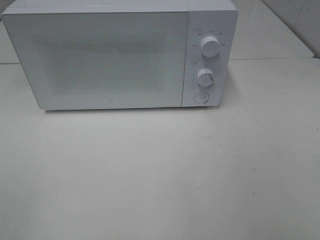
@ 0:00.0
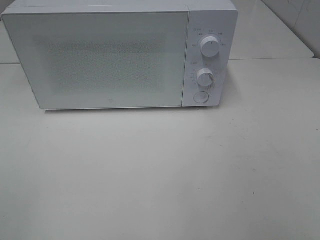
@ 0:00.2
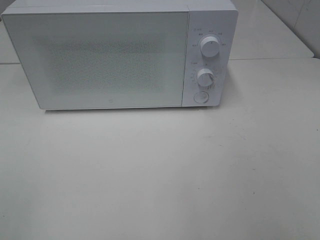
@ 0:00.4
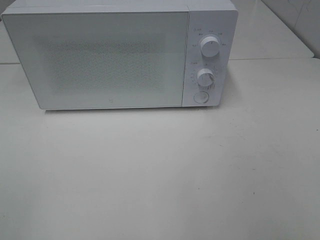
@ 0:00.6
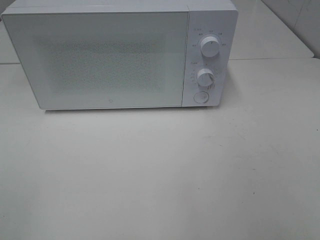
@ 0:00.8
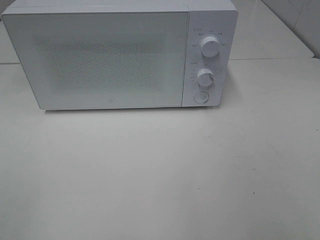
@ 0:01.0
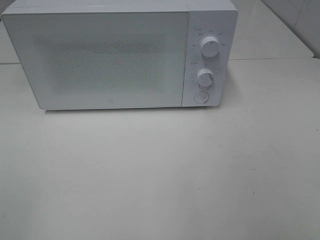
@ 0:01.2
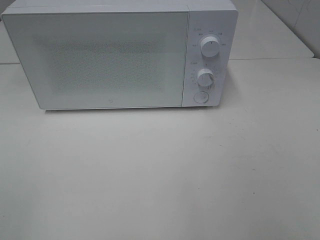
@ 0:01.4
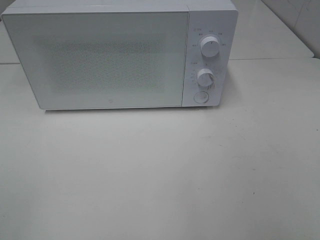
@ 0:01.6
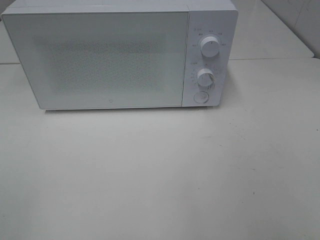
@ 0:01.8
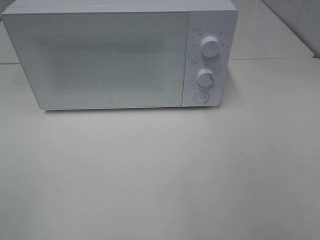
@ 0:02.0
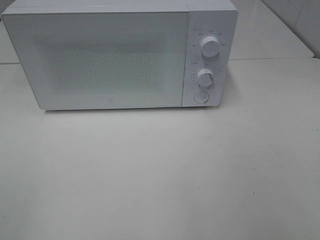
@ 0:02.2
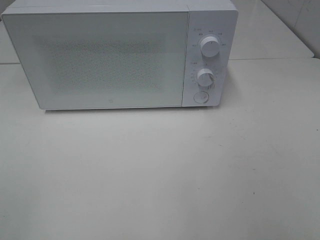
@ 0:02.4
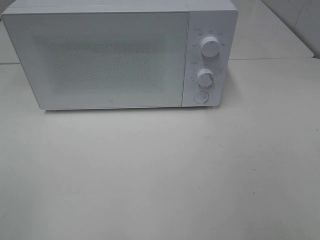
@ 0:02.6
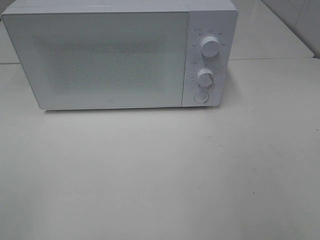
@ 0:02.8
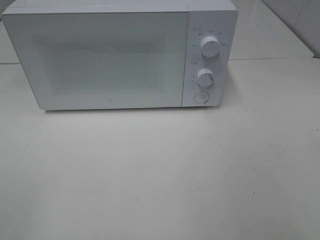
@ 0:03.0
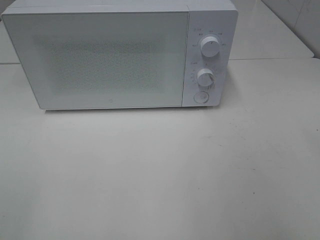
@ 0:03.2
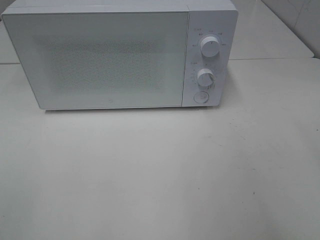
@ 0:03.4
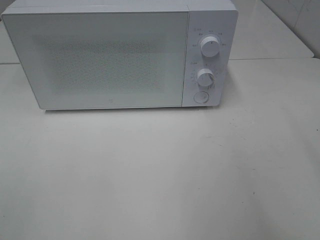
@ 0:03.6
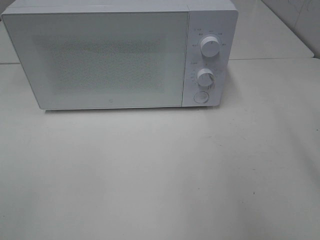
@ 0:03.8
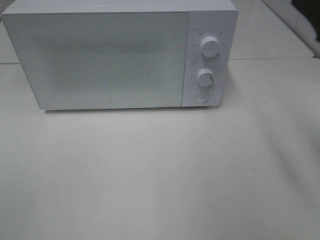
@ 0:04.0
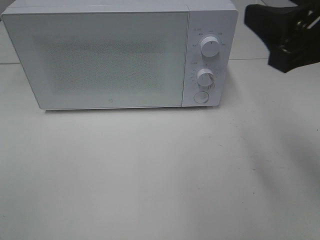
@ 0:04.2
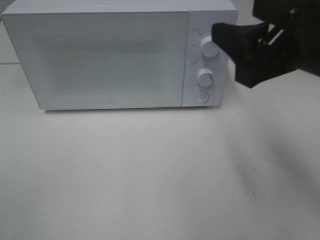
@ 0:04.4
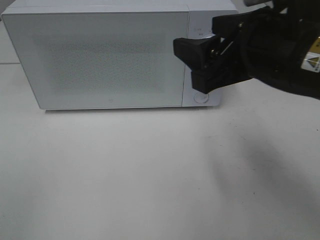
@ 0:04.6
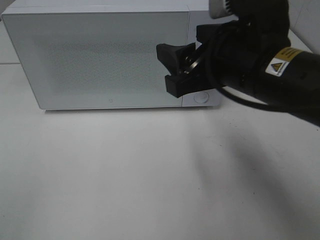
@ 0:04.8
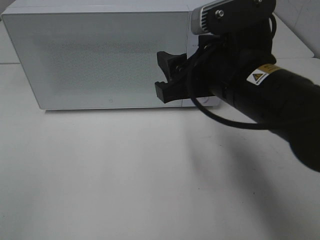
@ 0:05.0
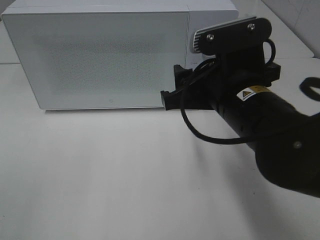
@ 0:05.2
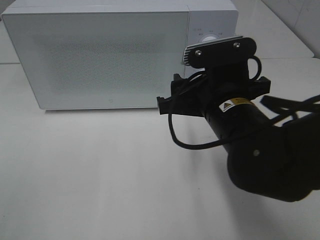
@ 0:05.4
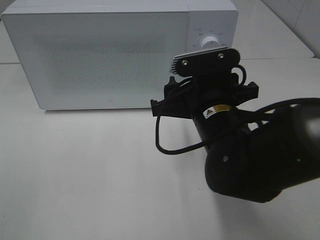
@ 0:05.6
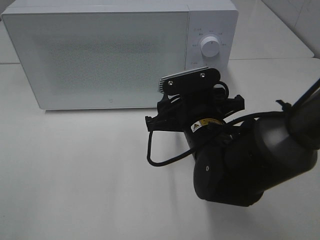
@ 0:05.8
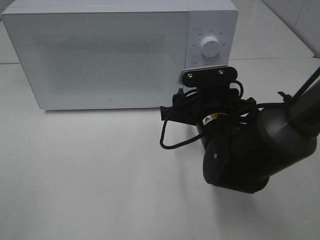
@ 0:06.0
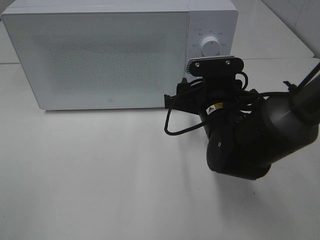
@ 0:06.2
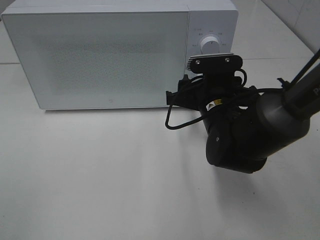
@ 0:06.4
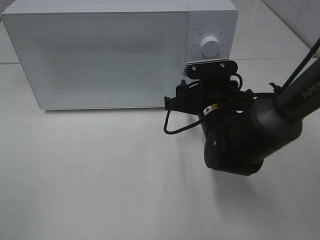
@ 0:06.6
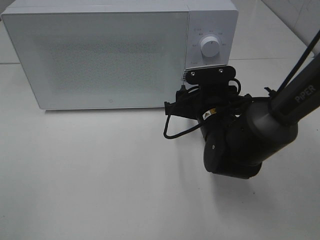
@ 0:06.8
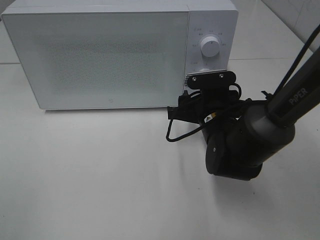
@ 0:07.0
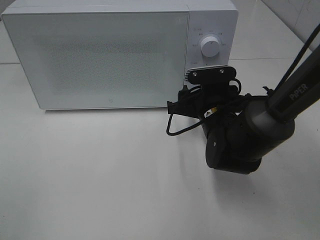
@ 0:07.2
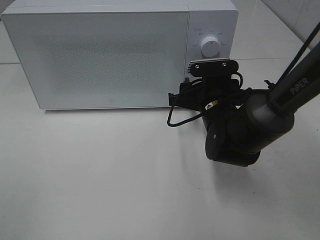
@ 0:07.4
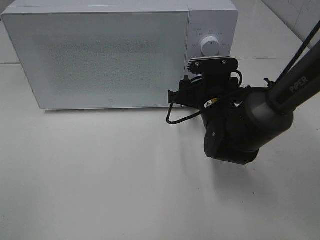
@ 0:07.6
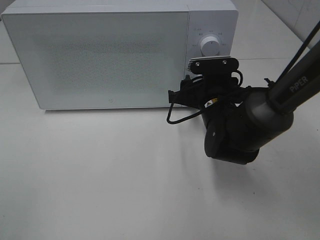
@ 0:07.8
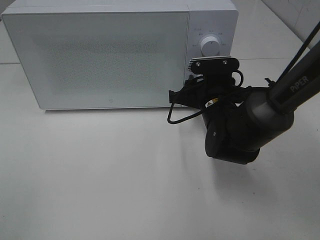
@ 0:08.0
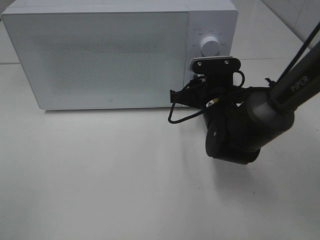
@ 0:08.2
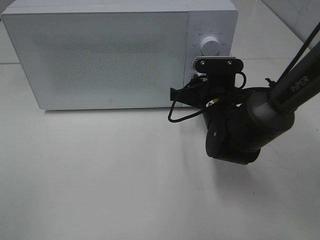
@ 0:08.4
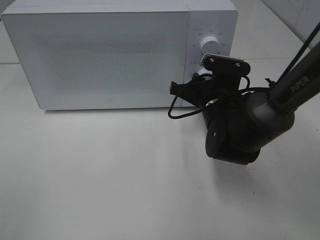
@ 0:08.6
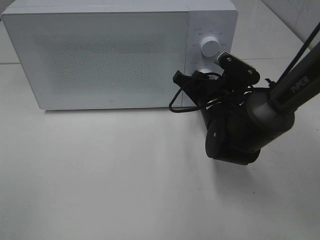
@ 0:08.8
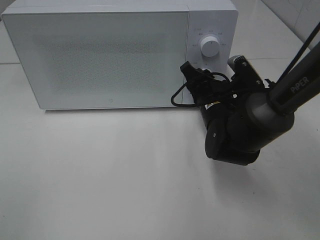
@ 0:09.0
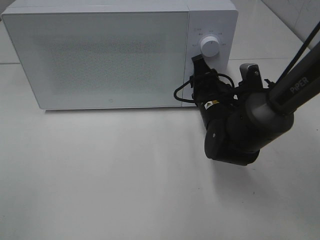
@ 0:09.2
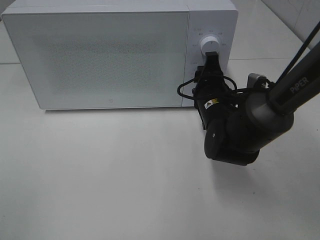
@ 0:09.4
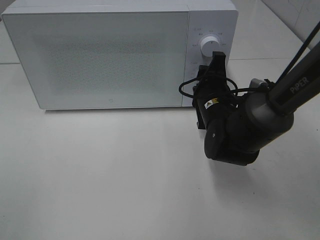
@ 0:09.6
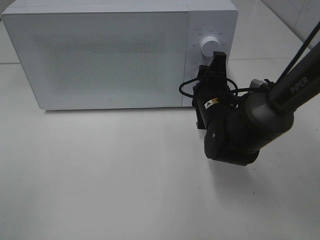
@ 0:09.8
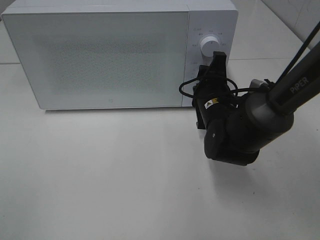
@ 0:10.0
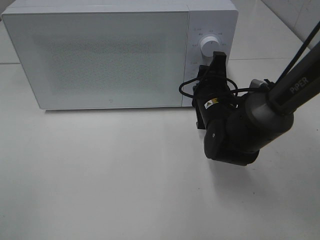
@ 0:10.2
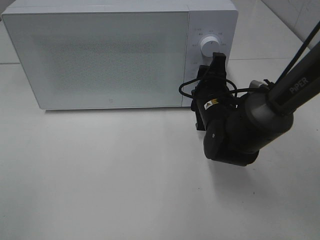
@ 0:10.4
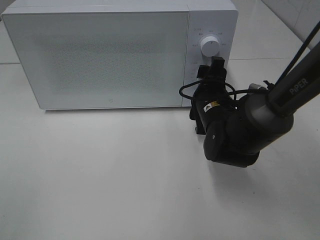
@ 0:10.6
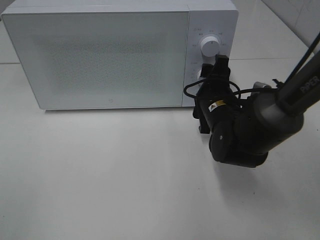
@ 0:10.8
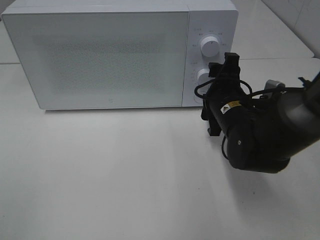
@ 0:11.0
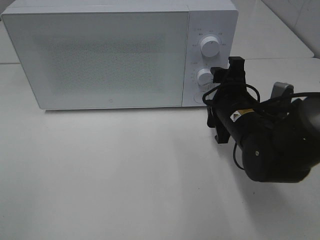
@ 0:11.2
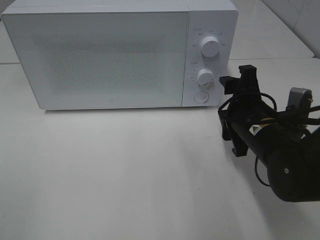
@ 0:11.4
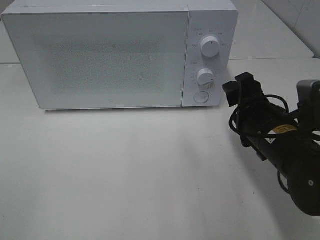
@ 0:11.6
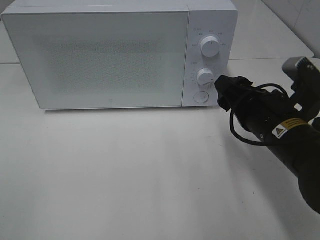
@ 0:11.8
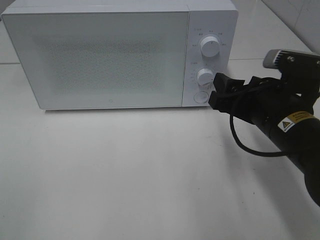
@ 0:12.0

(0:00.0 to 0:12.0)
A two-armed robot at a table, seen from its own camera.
Task of the whole recording: Heat Sandwich.
Step, 0:00.0 - 0:10.8: Right hand: twist timer button.
0:00.0 - 0:01.6: The two grippers keep their place.
0:03.0 - 0:04.4: The right gripper is displaced forward and to the left by roughly 20 cm.
0:04.4 - 0:06.0: The right gripper is displaced downward, forward and to the left by approximately 20 cm.
0:06.0 - 0:07.6: The right gripper goes roughly 5 cm forward.
0:07.6 - 0:09.0: The right gripper closes its fingers.
0:10.4 - 0:12.0: The right gripper heads backward, upward and to the right, covering approximately 15 cm.

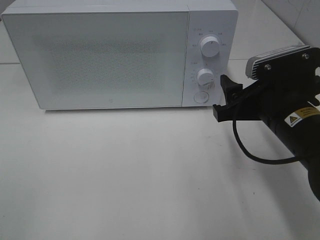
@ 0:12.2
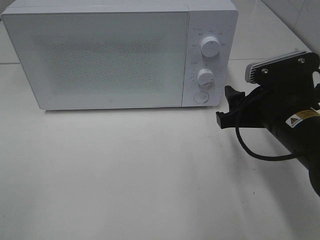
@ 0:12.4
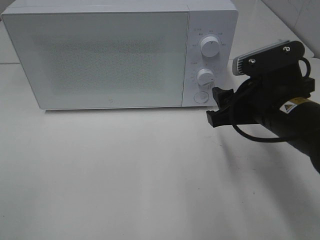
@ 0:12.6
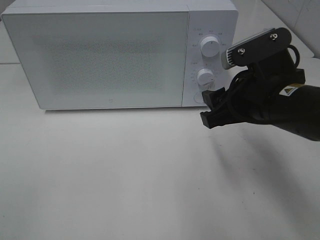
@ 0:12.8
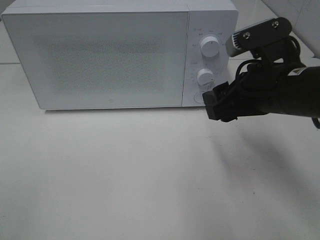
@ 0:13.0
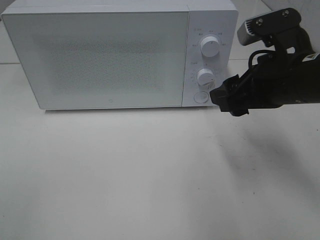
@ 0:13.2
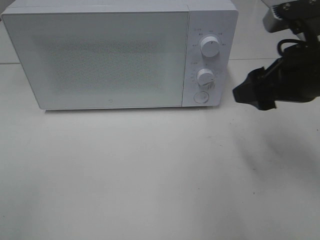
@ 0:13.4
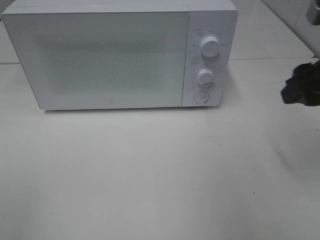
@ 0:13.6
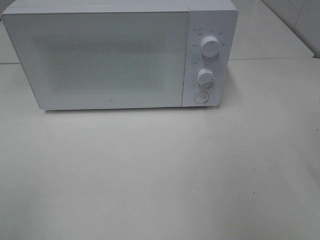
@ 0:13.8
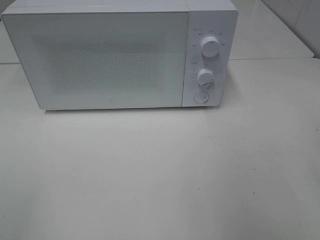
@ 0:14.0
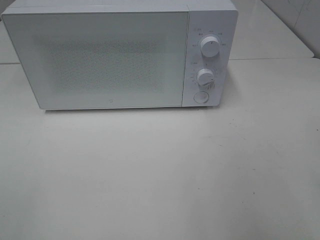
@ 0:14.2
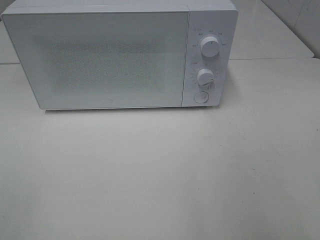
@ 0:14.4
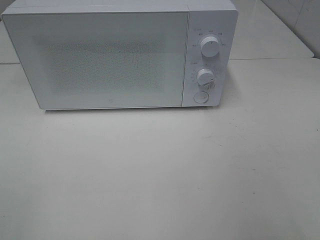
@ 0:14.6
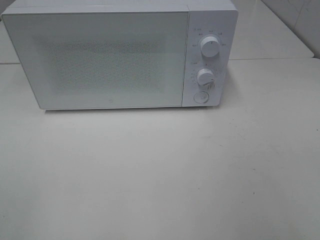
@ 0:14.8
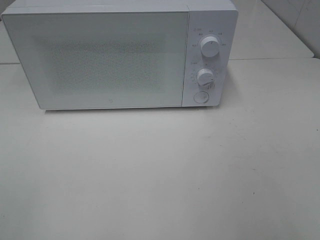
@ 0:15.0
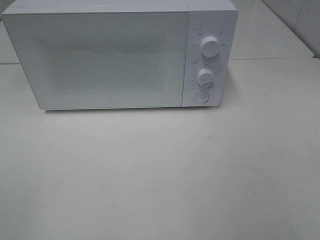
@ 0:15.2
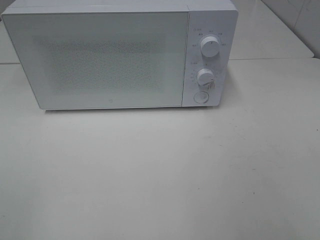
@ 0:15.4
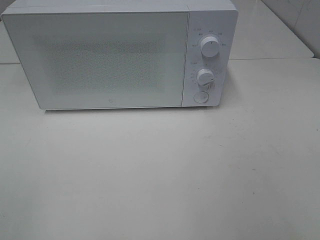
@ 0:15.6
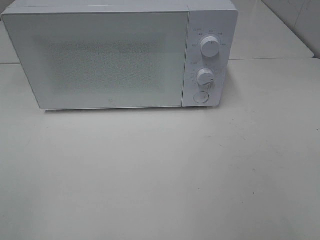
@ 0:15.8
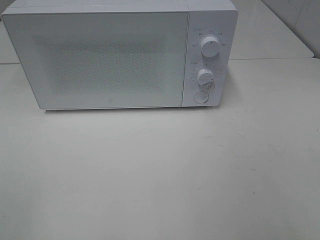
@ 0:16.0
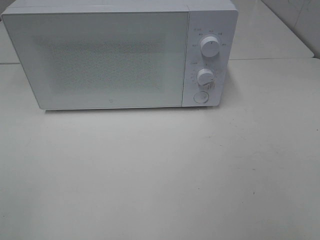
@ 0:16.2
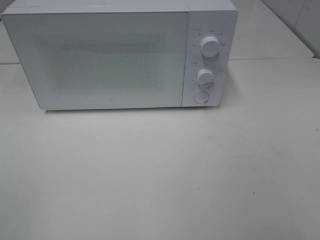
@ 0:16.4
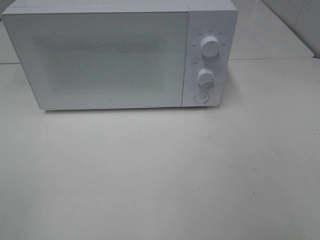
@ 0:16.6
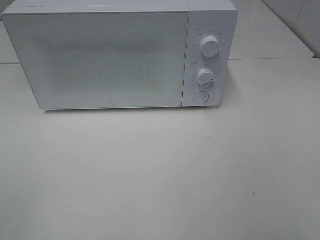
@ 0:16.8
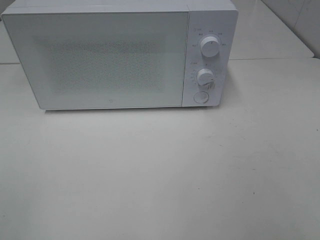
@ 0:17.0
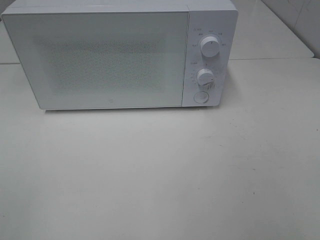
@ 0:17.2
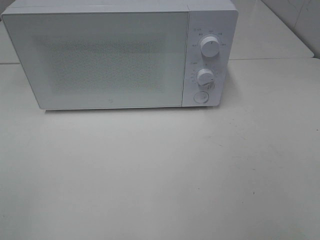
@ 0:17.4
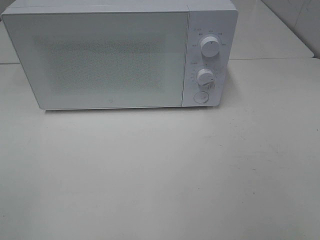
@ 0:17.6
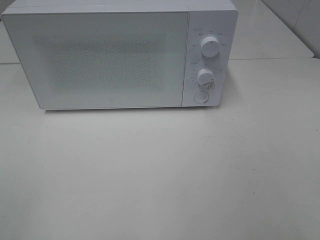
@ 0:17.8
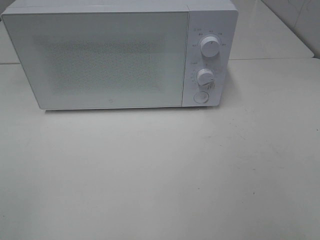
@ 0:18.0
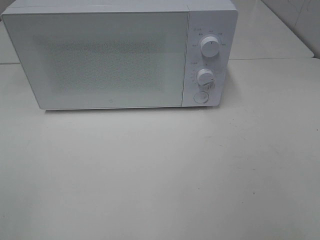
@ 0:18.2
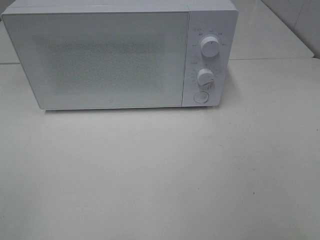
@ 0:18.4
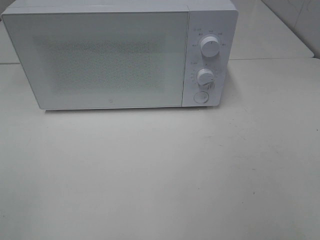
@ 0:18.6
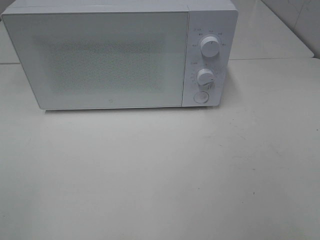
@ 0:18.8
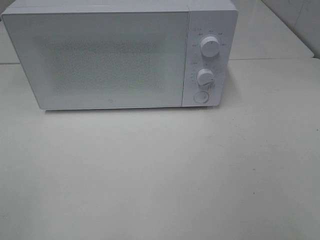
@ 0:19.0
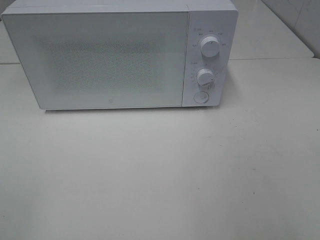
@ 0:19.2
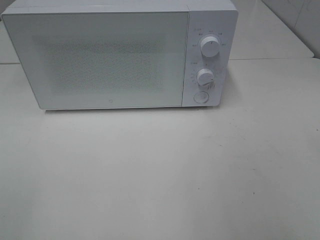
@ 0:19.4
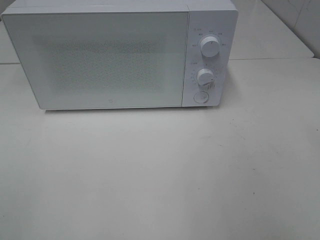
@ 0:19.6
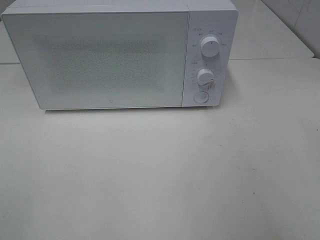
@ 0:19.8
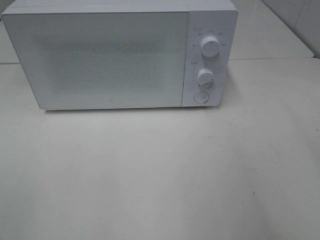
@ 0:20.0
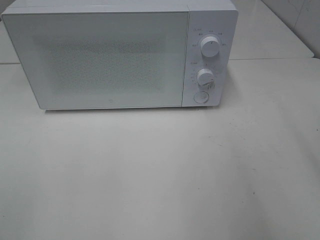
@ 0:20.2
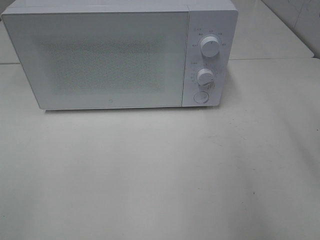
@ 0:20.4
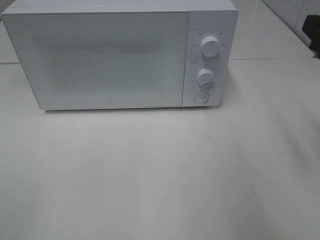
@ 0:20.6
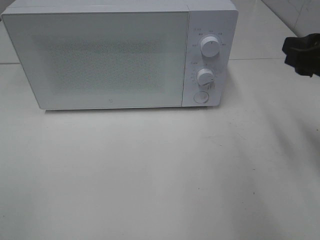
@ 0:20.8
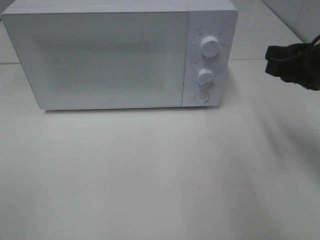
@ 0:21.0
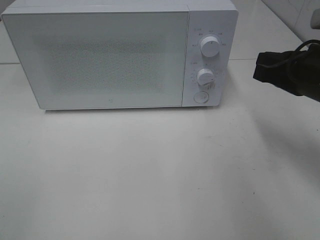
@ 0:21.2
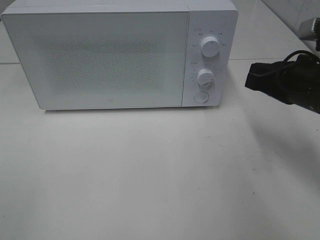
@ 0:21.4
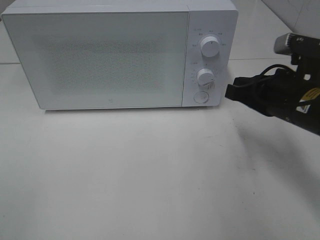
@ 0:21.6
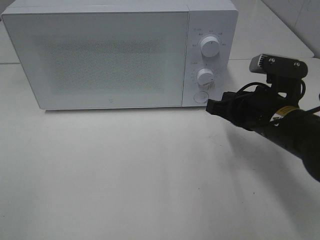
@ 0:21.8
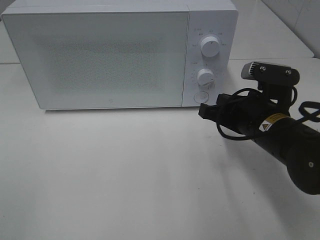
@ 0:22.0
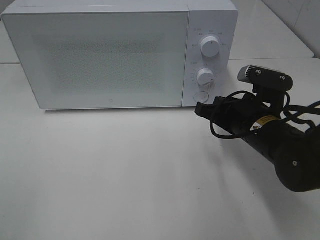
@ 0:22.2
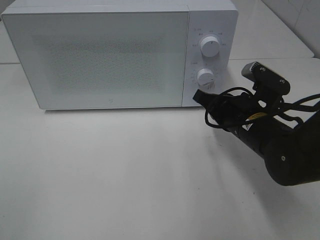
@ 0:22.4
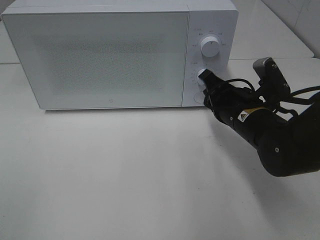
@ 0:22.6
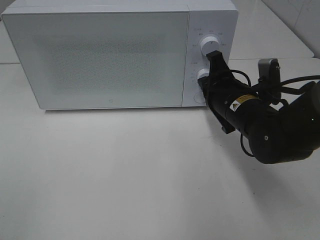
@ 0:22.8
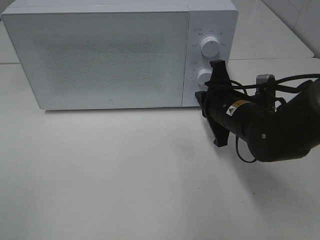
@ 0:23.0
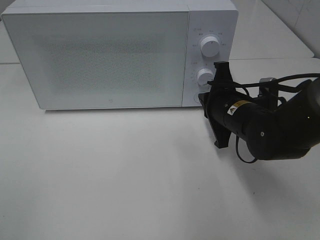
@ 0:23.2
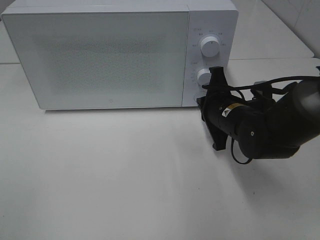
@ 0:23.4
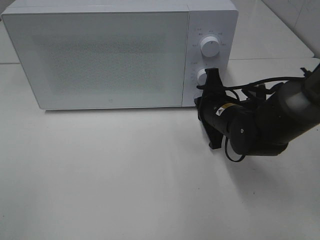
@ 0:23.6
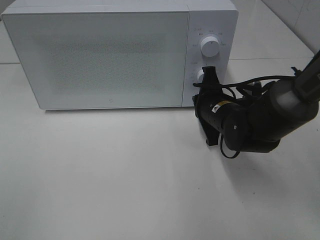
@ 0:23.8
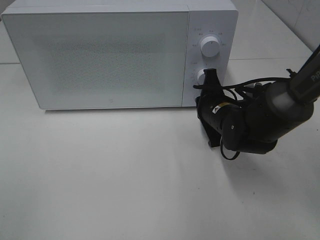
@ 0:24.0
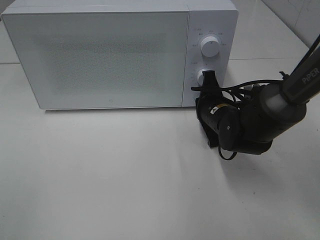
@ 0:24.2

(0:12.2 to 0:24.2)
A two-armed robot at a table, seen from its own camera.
Task of the whole recording: Heat Sandwich.
0:12.2 - 0:13.8: The right gripper heads upward and to the right, covering approximately 15 cm.
0:16.6 - 0:18.2: Both grippers stay put.
0:19.8 - 0:21.2: The right gripper shifts about 20 cm forward and downward, and closes.
0:21.2 - 0:22.6: The right gripper shifts about 10 cm to the left and downward.
0:22.6 - 0:24.2: The right gripper goes about 5 cm forward.
